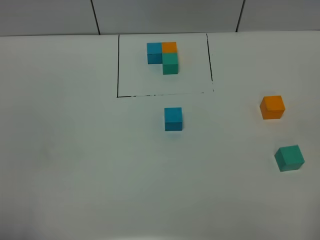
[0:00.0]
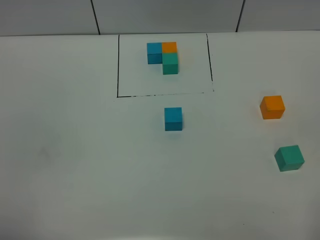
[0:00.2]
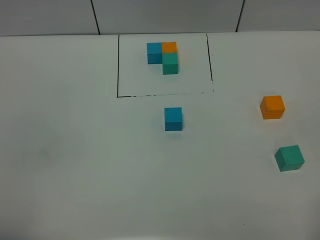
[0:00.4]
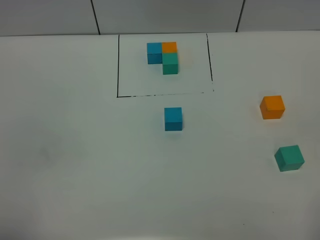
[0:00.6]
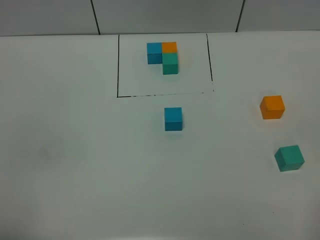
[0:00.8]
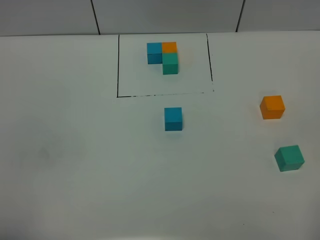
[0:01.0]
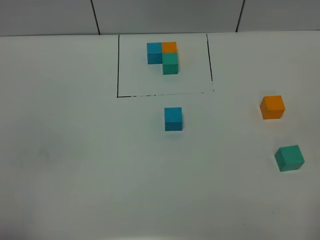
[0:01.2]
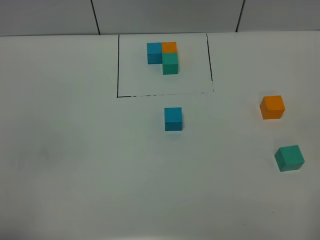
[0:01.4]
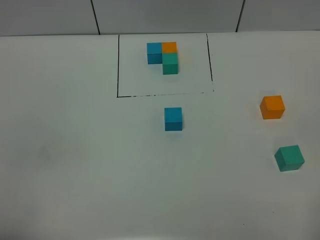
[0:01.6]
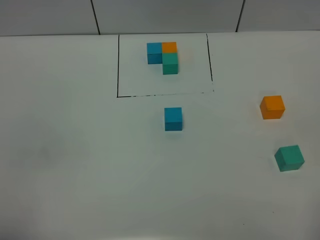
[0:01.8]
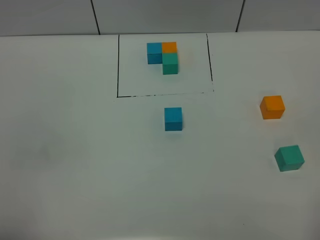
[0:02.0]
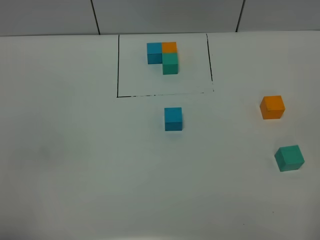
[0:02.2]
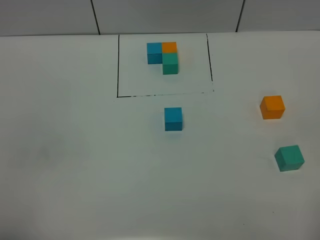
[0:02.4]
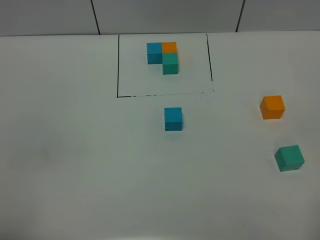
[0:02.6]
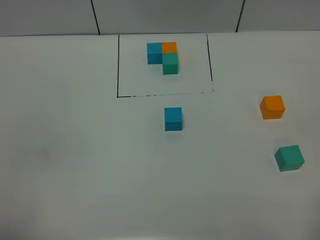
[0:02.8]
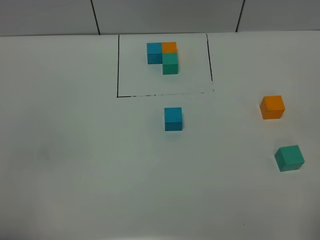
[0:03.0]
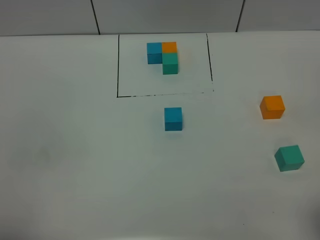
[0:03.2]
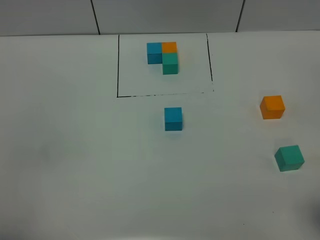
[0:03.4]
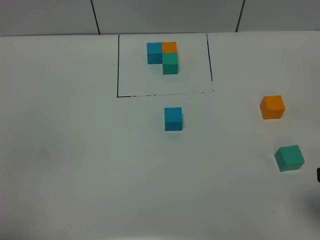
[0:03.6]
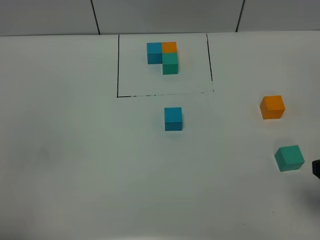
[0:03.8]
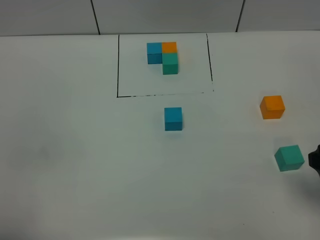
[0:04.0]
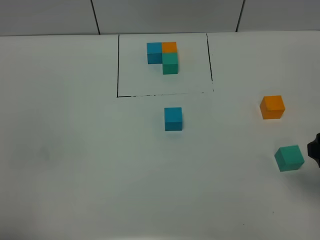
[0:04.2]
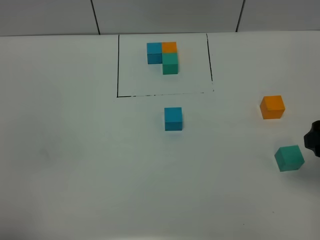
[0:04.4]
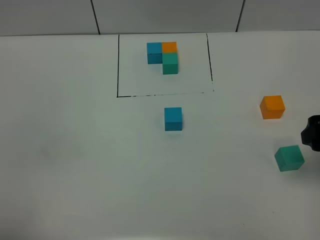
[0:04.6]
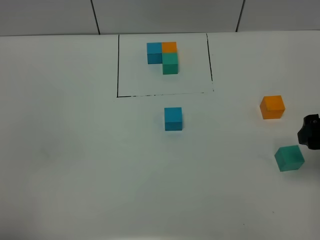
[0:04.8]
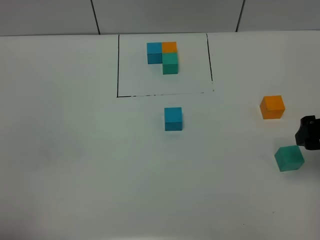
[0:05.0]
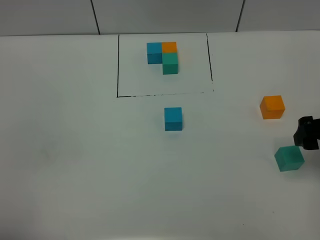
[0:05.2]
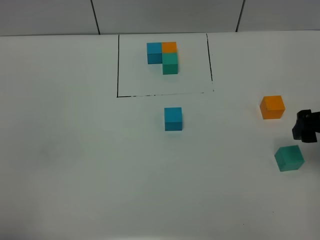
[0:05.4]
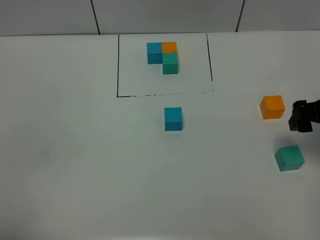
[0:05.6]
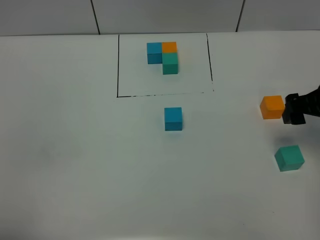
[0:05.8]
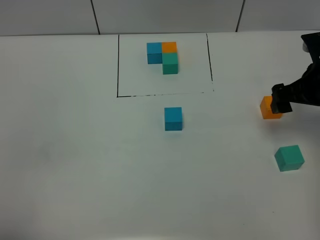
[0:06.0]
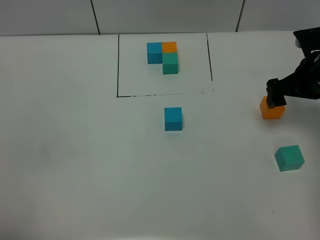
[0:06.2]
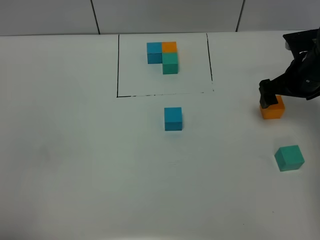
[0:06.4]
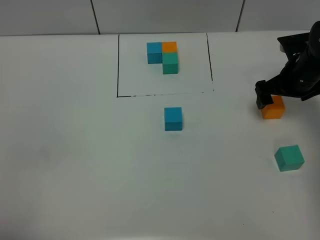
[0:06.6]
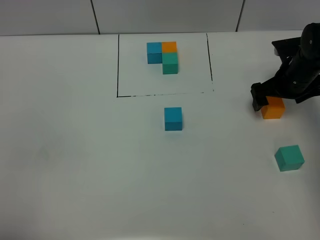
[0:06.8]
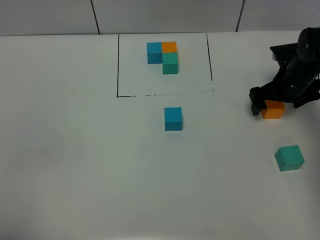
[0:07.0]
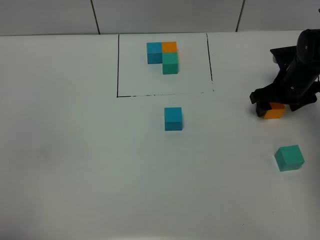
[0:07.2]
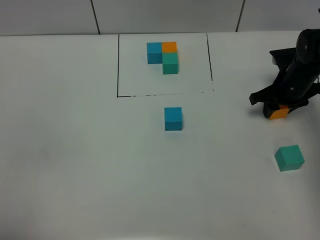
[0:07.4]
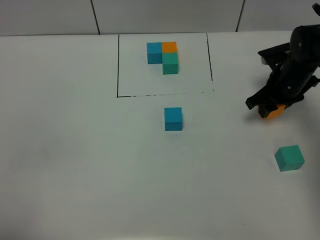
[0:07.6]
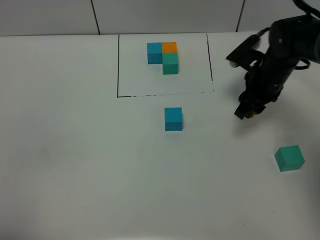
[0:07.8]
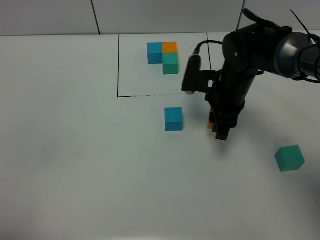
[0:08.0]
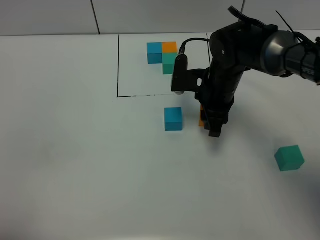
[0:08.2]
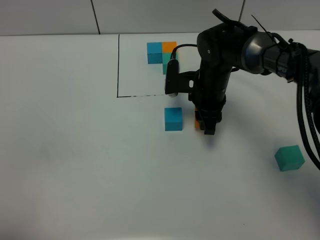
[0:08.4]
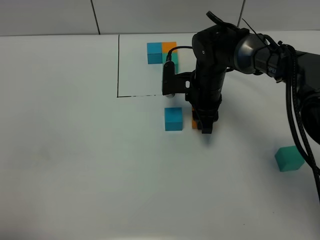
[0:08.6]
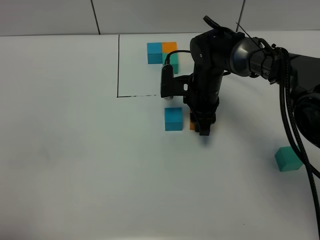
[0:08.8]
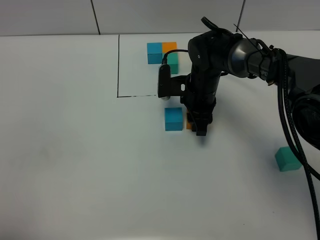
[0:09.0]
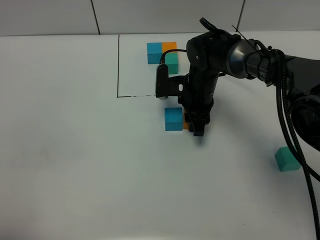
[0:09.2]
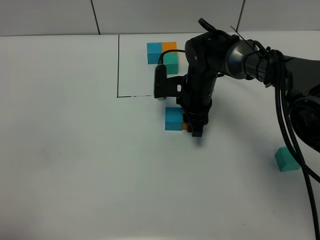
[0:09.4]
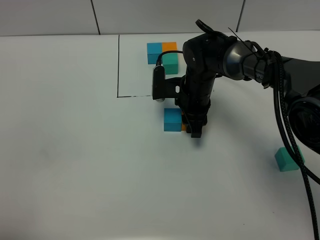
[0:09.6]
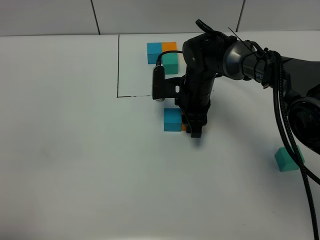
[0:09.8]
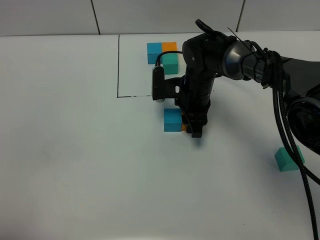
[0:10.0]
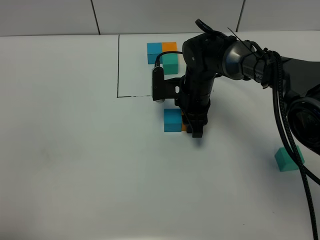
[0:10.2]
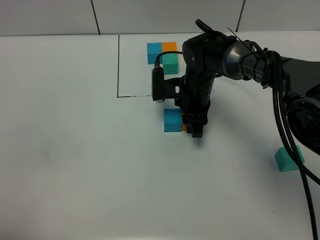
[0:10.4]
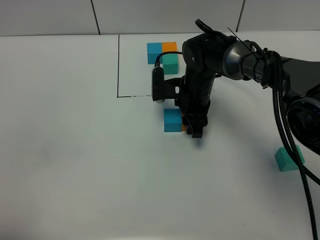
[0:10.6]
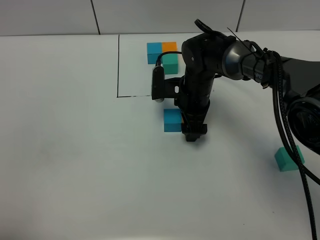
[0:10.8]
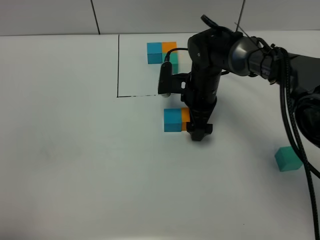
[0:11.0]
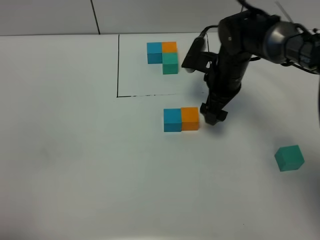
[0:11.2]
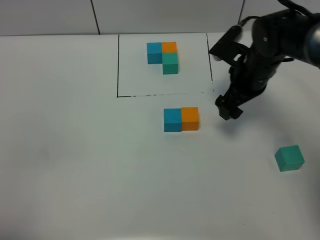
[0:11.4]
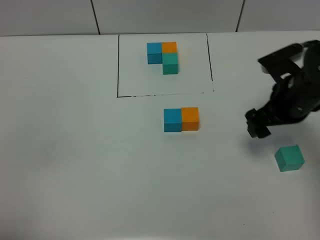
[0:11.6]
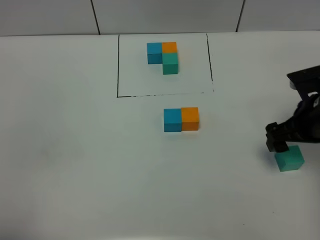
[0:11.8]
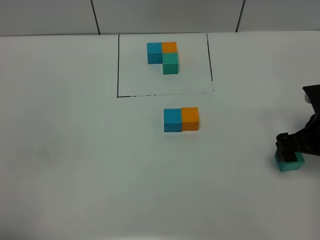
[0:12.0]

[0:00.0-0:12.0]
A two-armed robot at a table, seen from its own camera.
Task of the whole recording: According to the building block template in front, assemble the scattered blocks together.
Step, 0:00.0 to 0:10.8: Put the orange build block on the right of the blue build block.
0:03.0 to 0:04.4: The right gripper heads forward, covering some 15 cm.
0:04.4 to 0:06.0: The right gripper moves forward, roughly 15 cm.
0:06.0 to 0:07.6: The right gripper shifts about 10 cm downward and forward, and closes.
0:07.6 to 0:09.0: The right gripper heads to the left, covering roughly 15 cm.
0:09.0 to 0:10.4: Both grippers stay put.
0:10.4 to 0:12.0: The right gripper is displaced to the right and backward by some 25 cm, and opens.

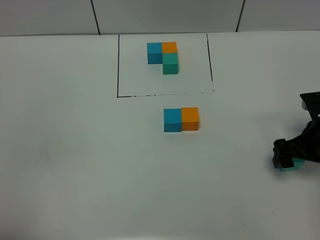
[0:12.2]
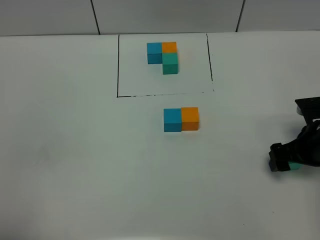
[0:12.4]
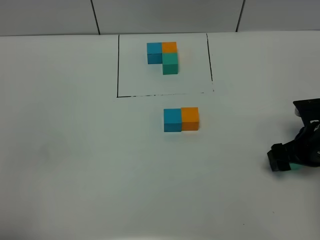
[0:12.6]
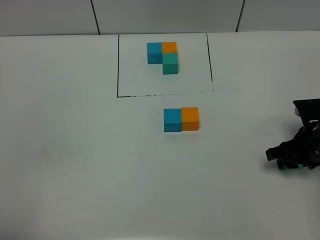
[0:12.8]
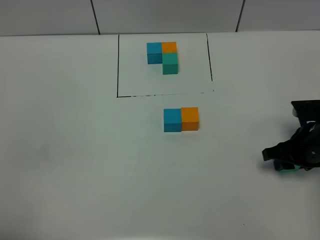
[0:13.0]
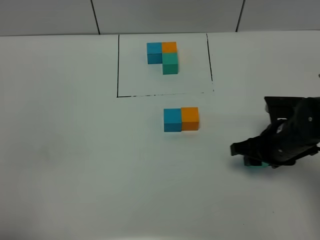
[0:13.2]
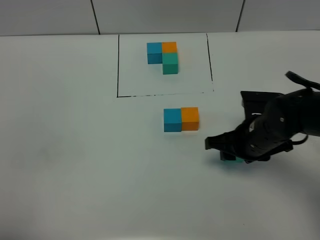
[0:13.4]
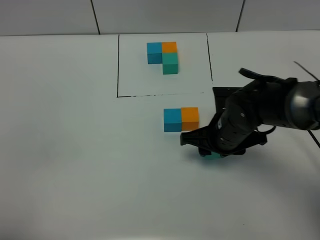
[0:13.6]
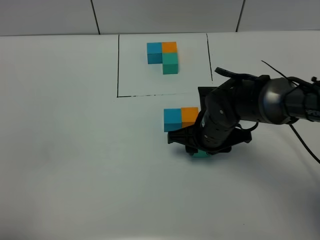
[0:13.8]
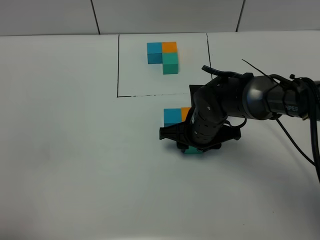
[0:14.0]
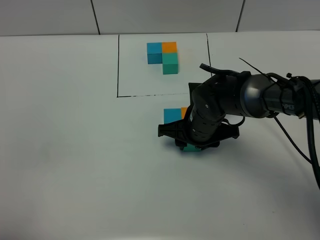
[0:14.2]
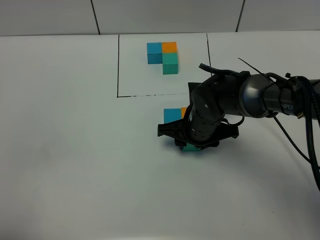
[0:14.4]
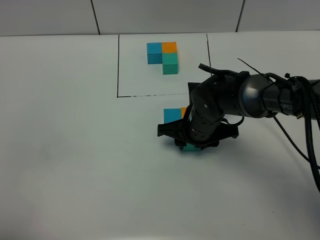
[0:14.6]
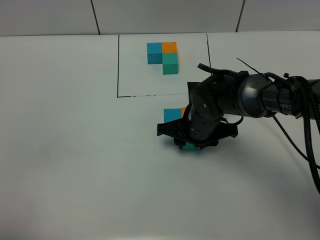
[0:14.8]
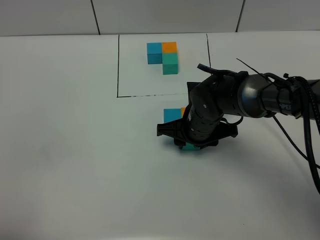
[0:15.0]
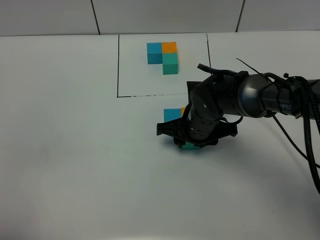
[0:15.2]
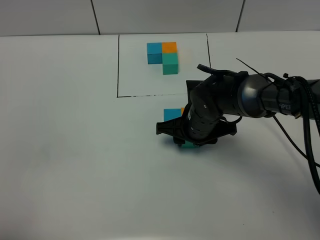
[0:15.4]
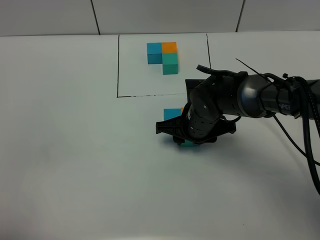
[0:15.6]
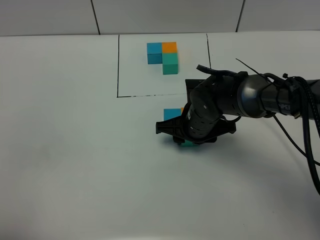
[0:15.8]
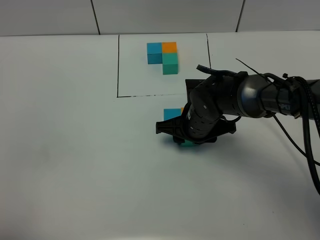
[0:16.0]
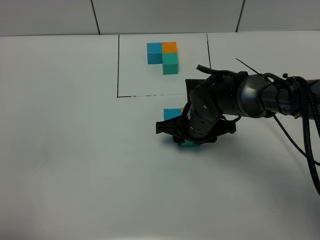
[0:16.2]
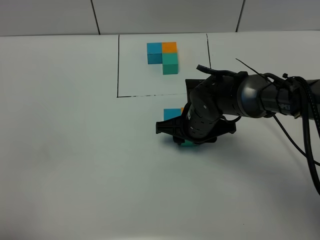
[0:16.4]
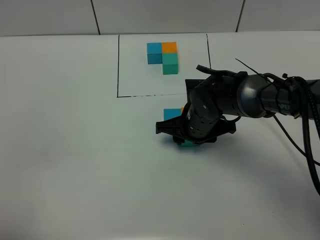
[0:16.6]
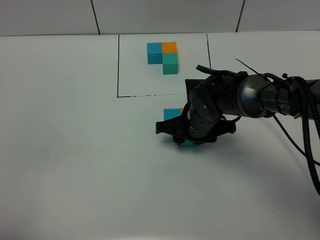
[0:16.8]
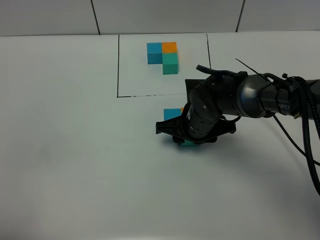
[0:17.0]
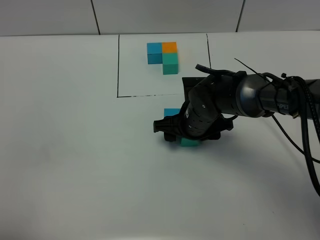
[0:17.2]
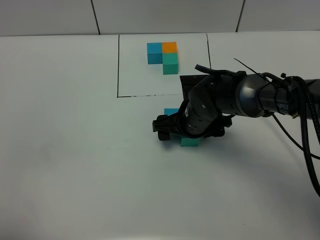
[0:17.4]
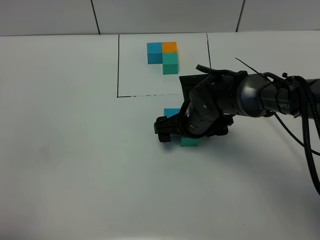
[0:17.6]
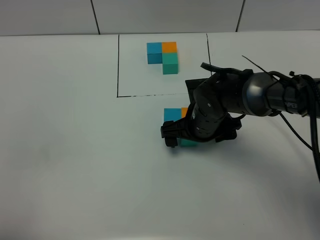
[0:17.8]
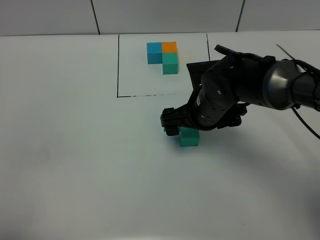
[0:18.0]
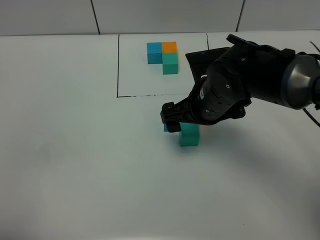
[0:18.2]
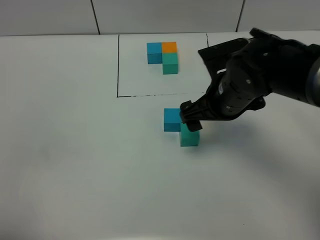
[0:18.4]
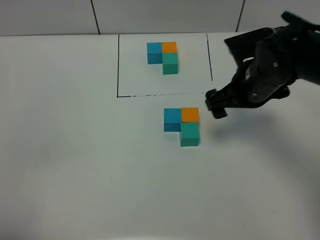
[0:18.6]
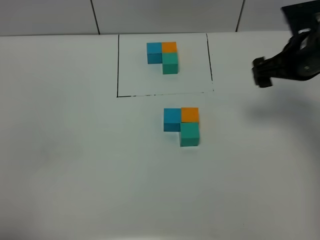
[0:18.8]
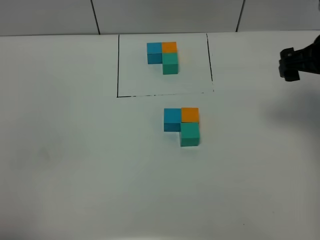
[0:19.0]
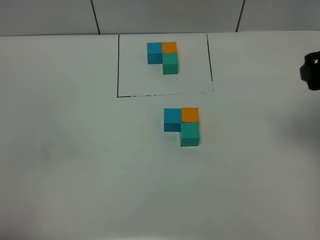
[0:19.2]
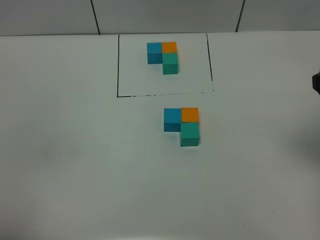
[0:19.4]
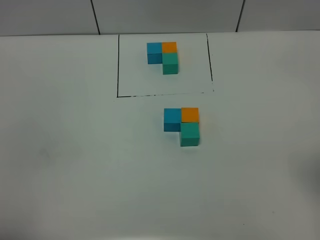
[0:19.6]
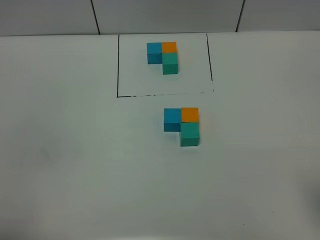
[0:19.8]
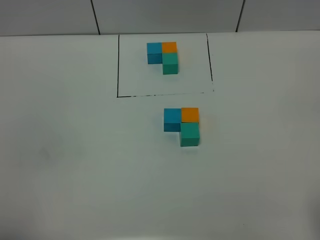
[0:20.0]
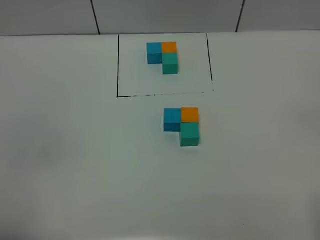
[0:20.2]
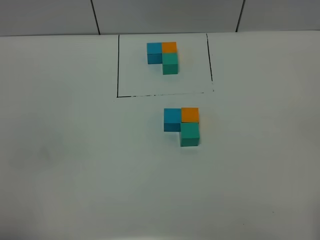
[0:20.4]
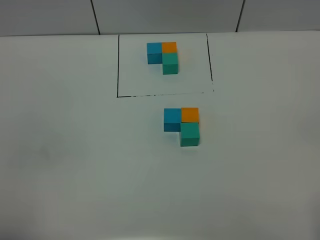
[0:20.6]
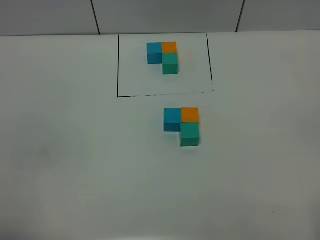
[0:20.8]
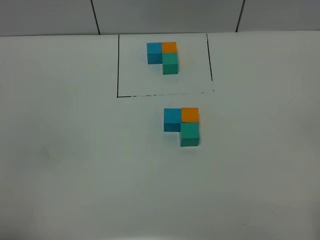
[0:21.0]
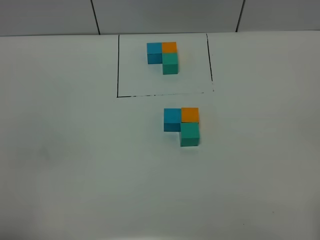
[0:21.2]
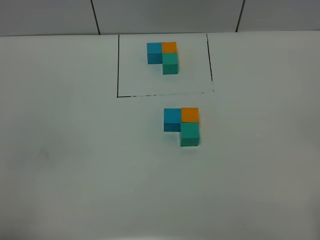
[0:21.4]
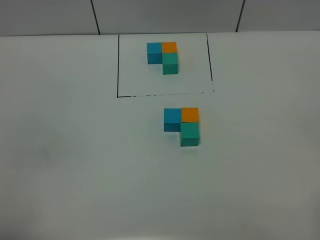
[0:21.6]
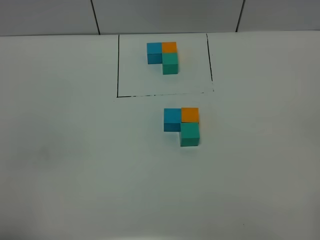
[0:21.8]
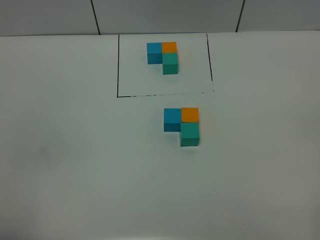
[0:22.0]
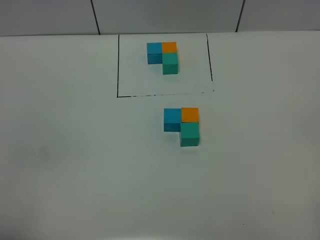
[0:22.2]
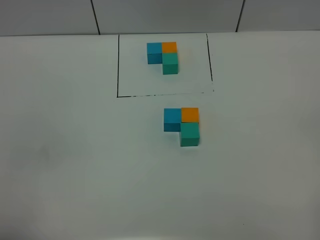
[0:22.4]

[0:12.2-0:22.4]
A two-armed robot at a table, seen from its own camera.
Task of the whole recording: According to the building block template in front, assemble the scattered blocks together.
Step, 0:12.2 to 0:17.0: Put the green build block on the behind of the orange build block.
0:12.2 to 0:13.6: The right gripper shifts approximately 20 cm to the left, and closes.
0:13.6 to 0:15.2: The right gripper changes place by approximately 5 cm.
0:15.2 to 0:16.6: Both grippers stay put.
0:16.6 to 0:18.0: The right gripper shifts some 5 cm upward, and opens its fingers.
0:18.0 to 0:19.4: The right gripper moves to the right, upward and backward, some 25 cm.
0:19.4 to 0:21.0: The right gripper goes some 20 cm backward.
